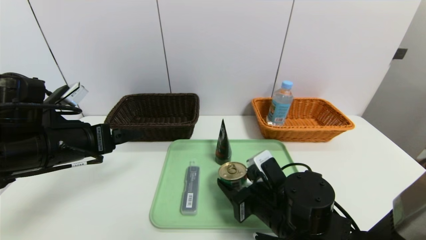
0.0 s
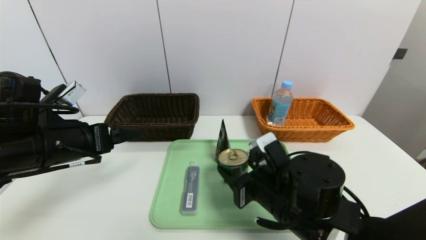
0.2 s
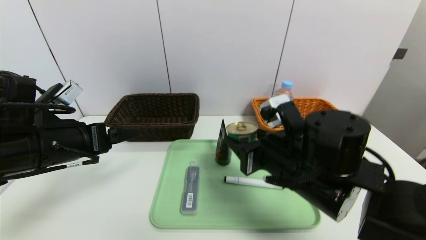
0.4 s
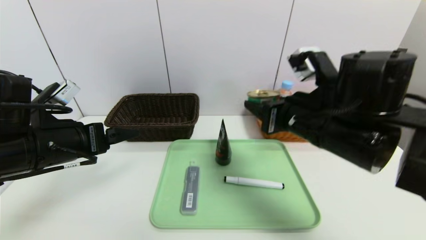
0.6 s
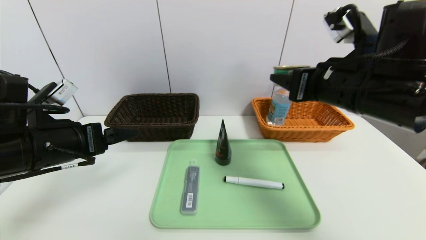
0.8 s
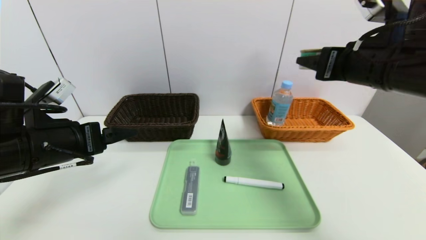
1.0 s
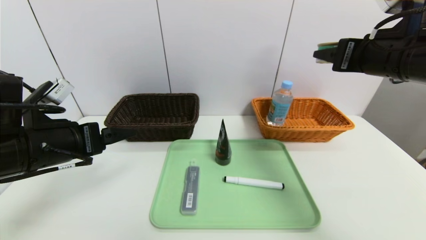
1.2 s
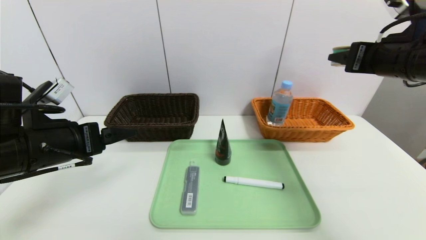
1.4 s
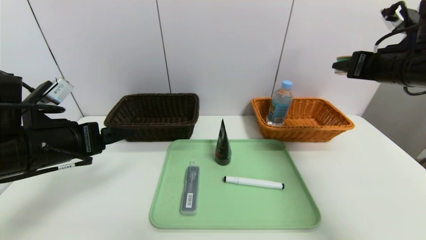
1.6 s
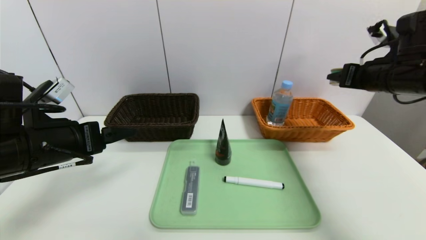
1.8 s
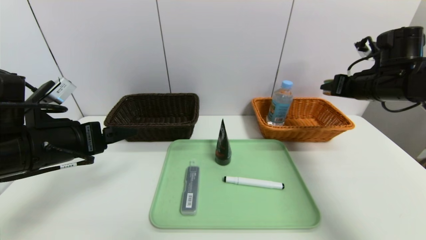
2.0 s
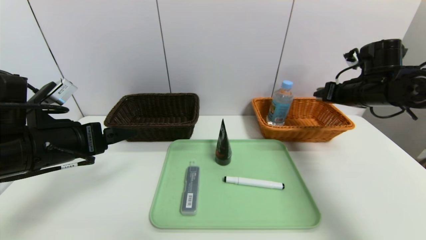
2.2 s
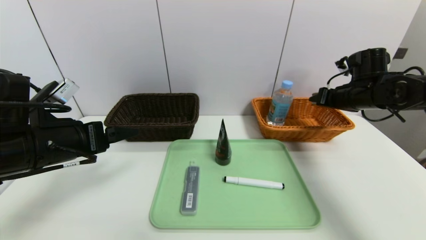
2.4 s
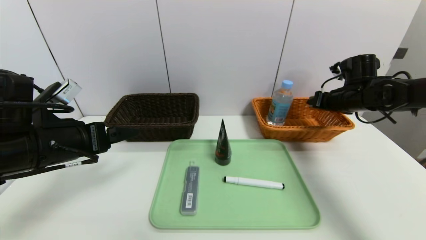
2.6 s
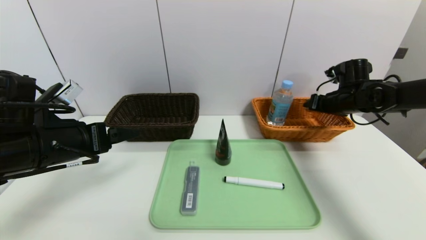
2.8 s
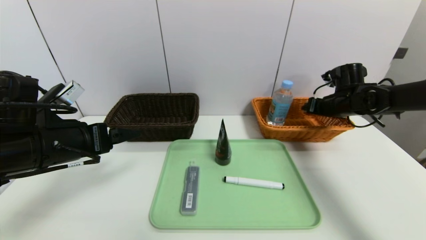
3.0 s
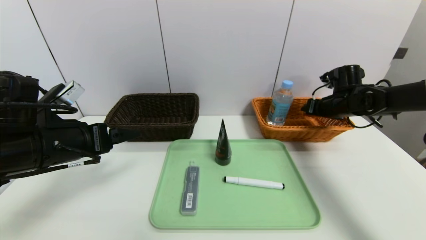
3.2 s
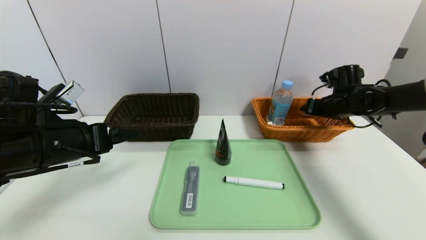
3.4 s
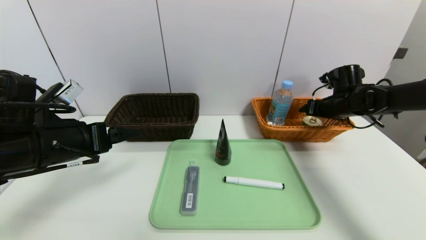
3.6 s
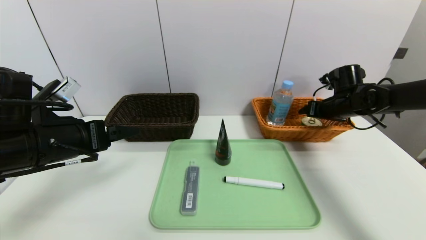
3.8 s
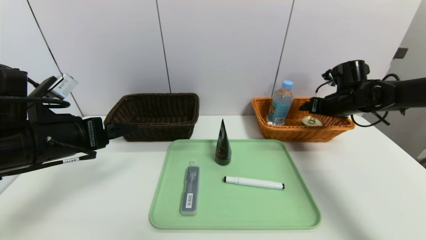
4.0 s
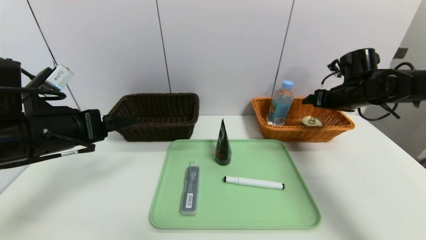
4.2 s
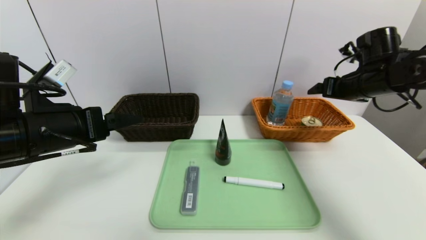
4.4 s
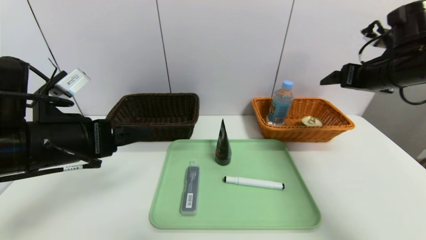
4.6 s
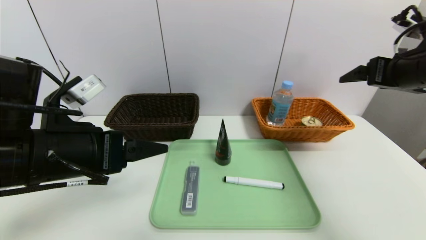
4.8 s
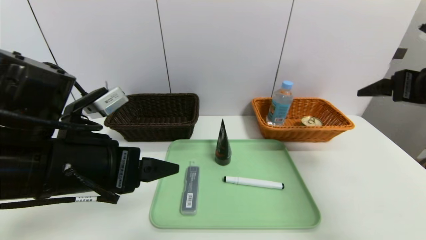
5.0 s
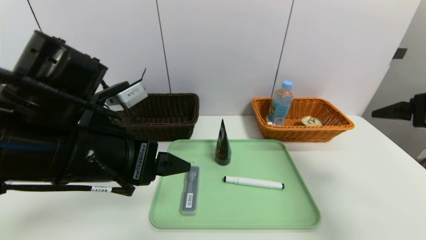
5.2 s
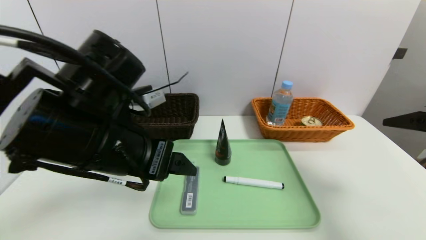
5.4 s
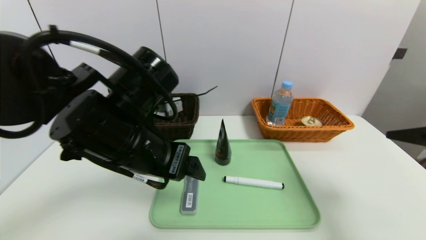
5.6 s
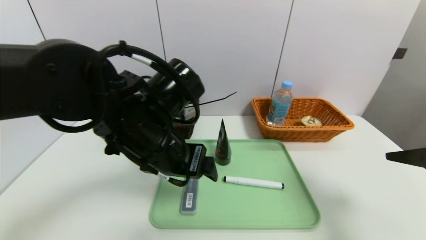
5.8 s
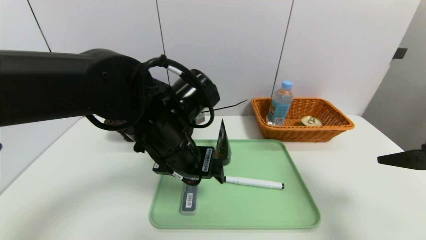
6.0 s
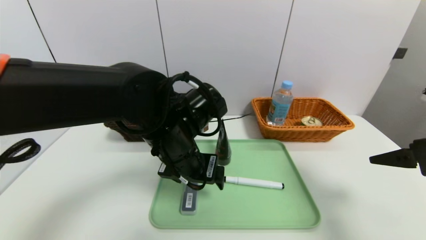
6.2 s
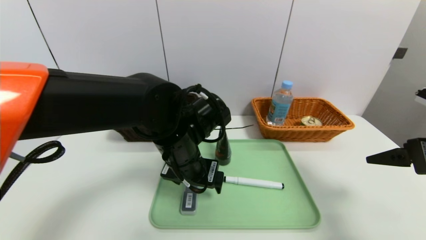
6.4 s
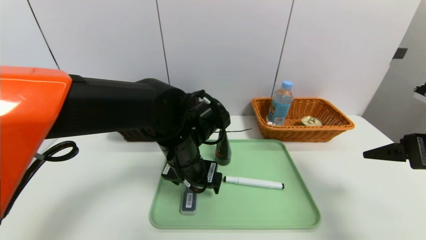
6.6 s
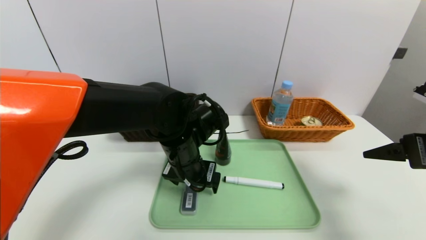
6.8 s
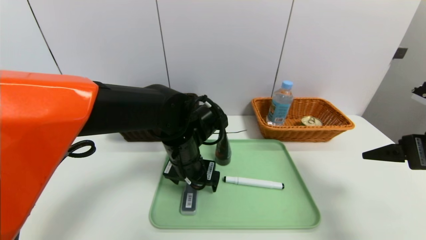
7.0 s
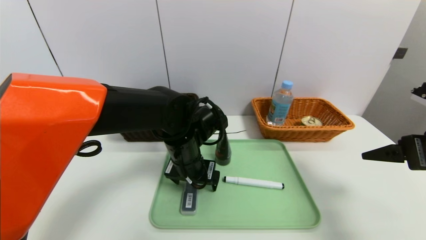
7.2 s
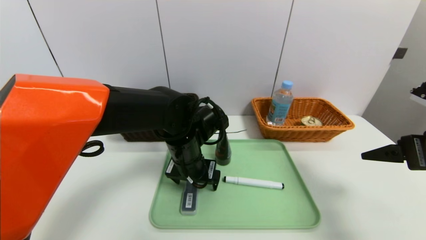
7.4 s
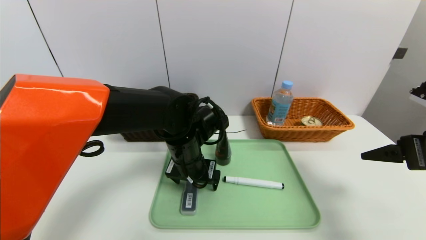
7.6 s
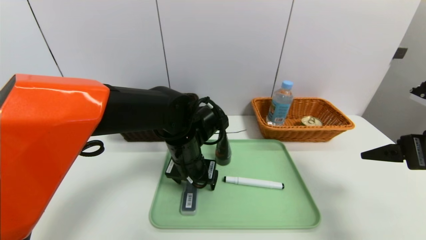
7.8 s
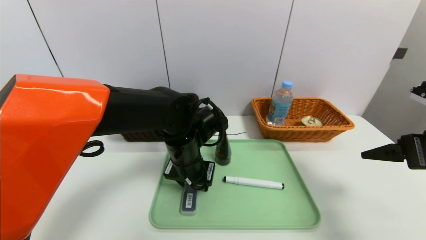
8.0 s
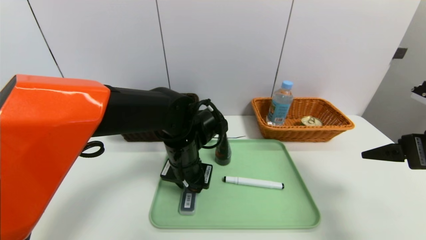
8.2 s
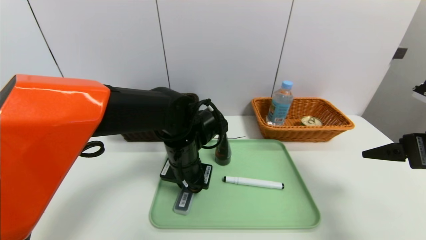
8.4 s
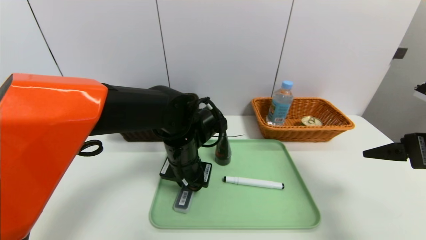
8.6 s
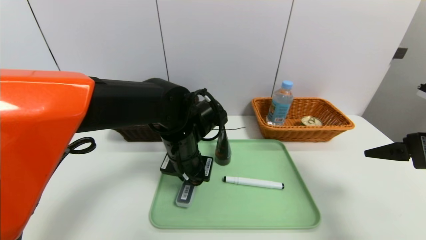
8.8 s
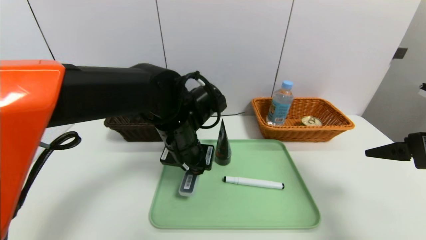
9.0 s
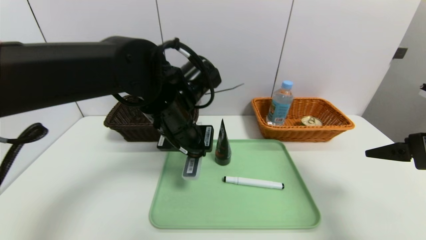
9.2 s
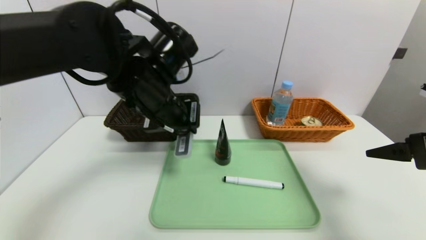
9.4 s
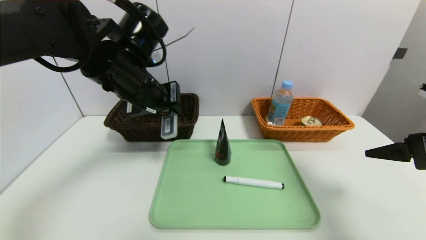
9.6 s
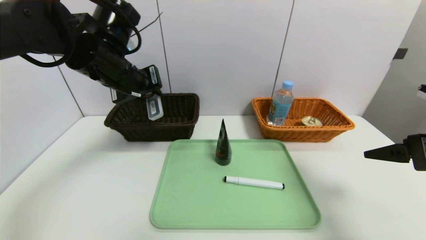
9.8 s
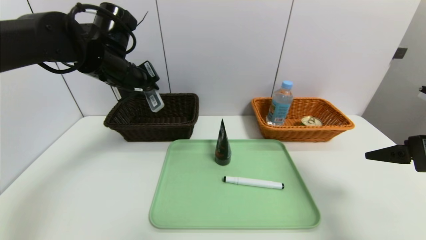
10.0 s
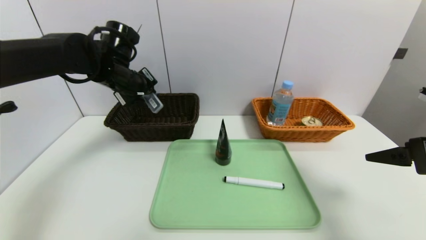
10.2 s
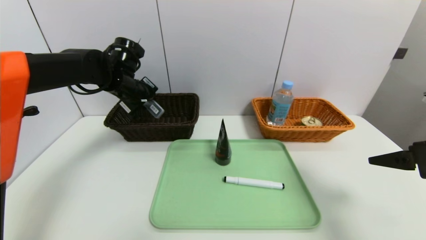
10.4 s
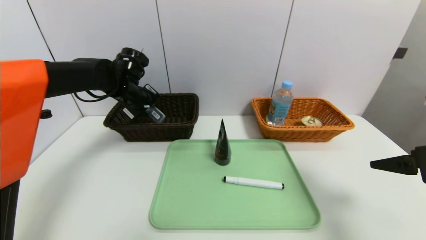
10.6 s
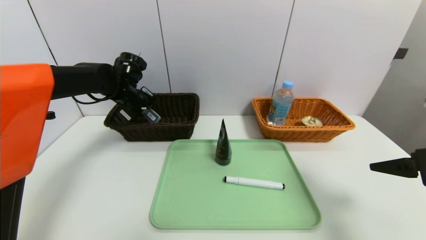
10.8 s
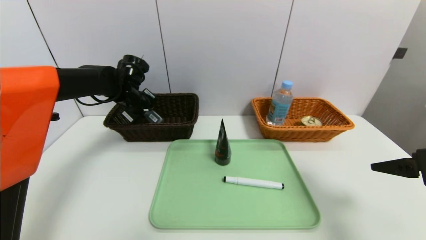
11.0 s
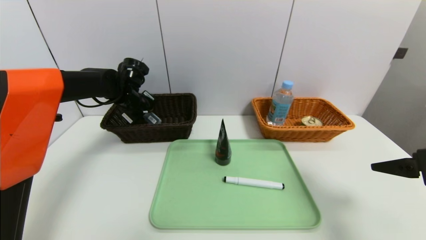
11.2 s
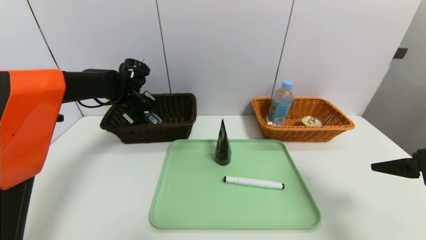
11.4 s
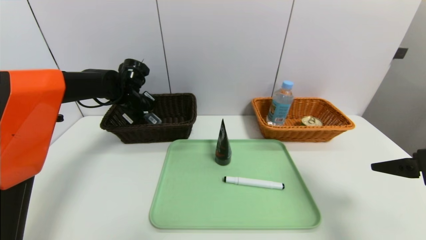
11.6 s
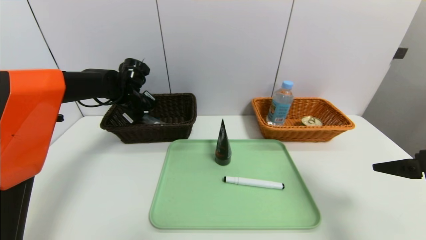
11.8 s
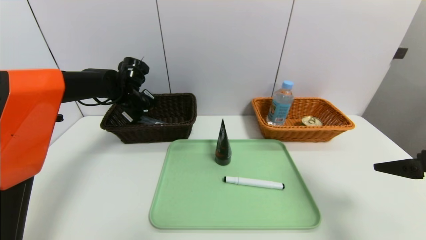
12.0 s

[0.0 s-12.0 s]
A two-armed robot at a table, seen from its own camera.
Task of the whole recording: place the food in the right basket with the right gripper, and place the non food items in the left basket with the left gripper.
Step, 0.0 to 4.0 s: Grasp the can and put it in the right basket.
0.0 to 1.6 s: The right gripper shifts roughly 30 cm upward, to the right and forward.
1.6 to 3.0 s: The right gripper goes approximately 20 cm forward and downward.
3.0 to 4.4 s: The right gripper goes about 10 cm upward and backward, and opens.
4.4 to 6.0 s: The left gripper goes about 15 cm to the right, while the right gripper travels backward by approximately 20 cm.
6.0 to 7.6 s: The left gripper heads downward and forward, covering roughly 10 cm.
7.6 to 9.0 s: The left gripper closes up.
9.0 to 10.4 s: The left gripper moves to the left and forward, some 20 cm.
10.4 to 12.0 s: The left gripper ends up approximately 5 cm from where it was, and opens up.

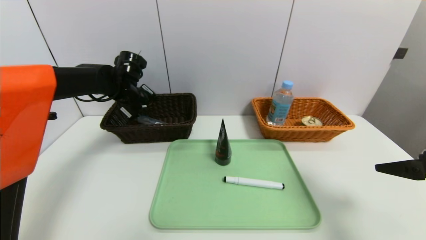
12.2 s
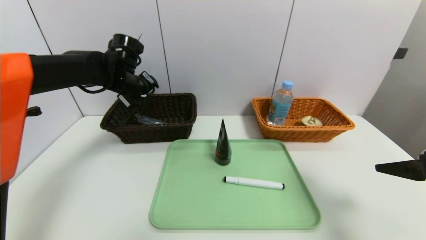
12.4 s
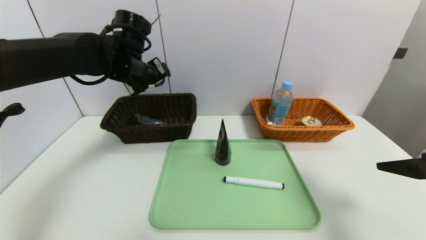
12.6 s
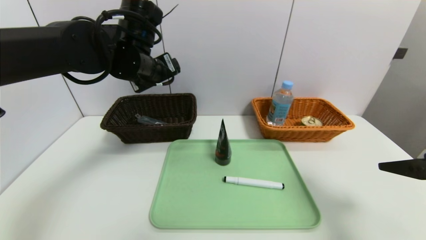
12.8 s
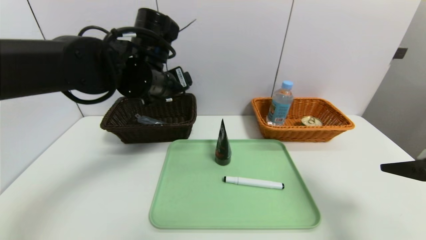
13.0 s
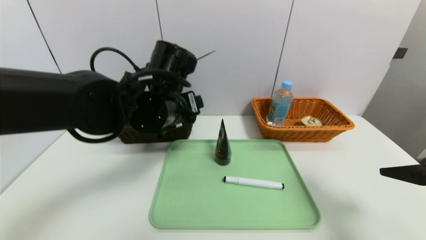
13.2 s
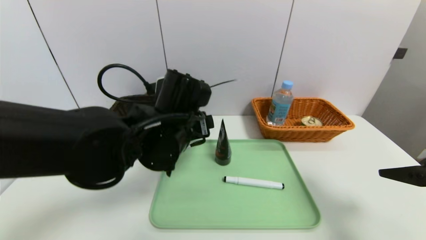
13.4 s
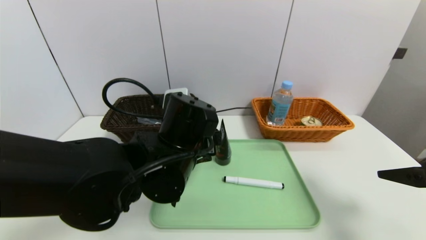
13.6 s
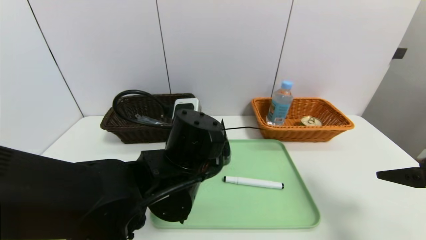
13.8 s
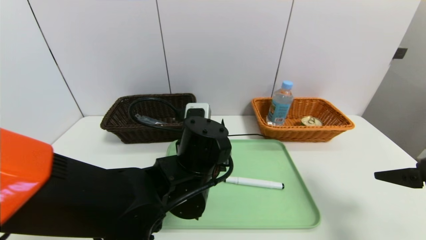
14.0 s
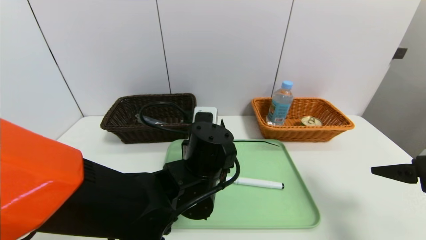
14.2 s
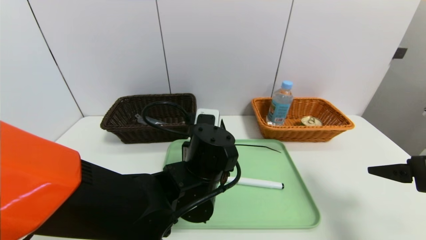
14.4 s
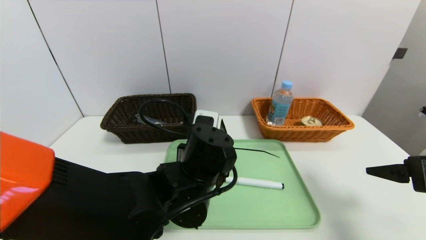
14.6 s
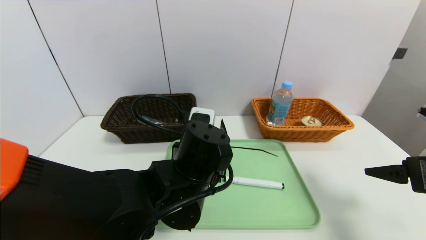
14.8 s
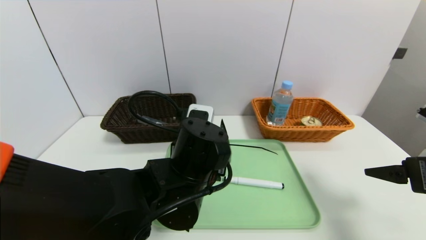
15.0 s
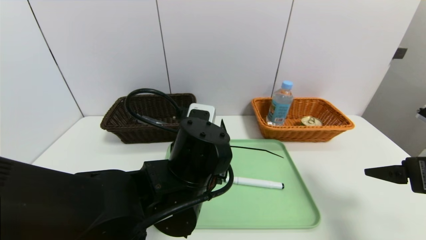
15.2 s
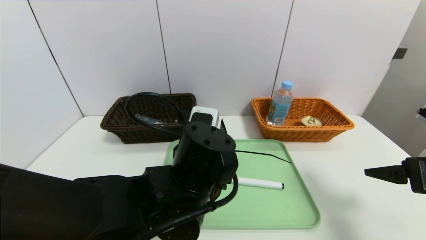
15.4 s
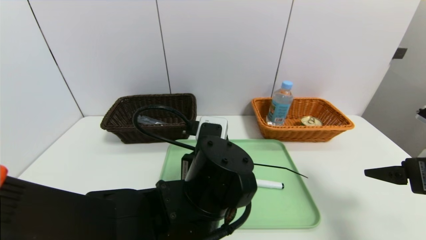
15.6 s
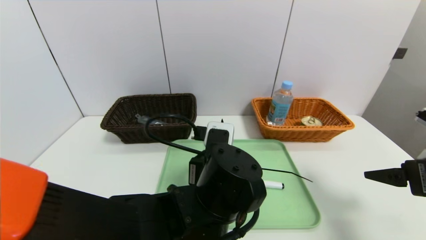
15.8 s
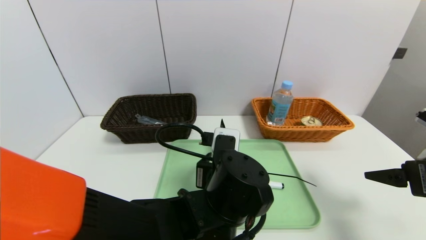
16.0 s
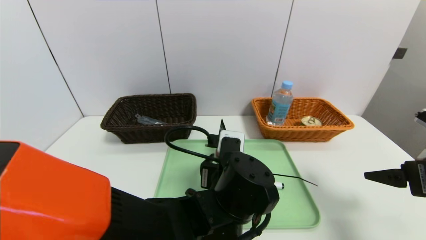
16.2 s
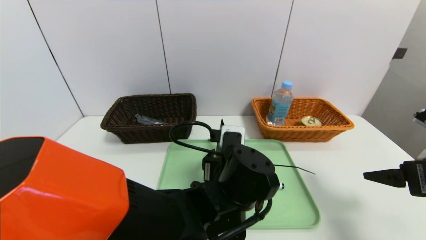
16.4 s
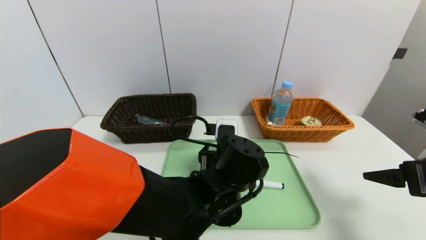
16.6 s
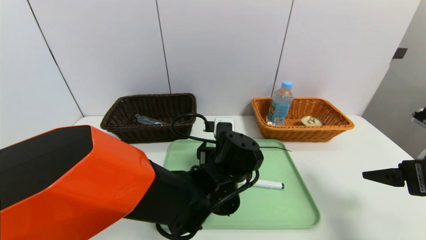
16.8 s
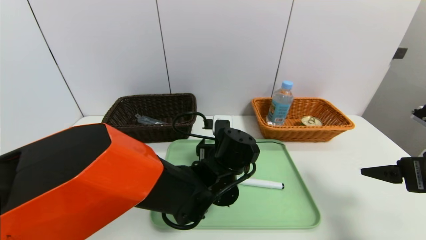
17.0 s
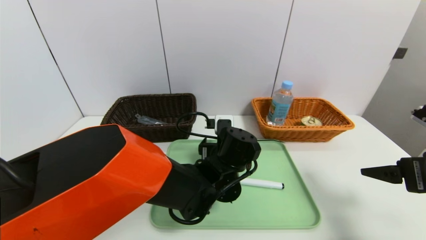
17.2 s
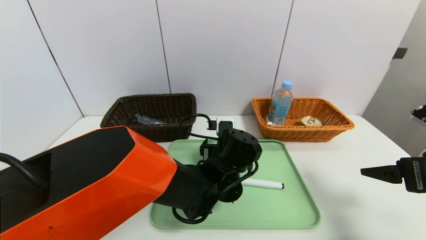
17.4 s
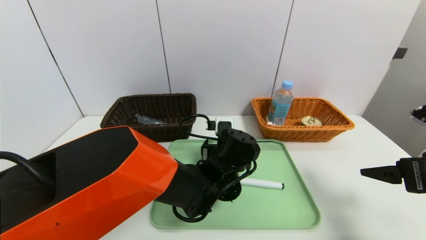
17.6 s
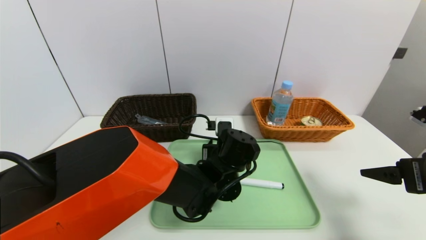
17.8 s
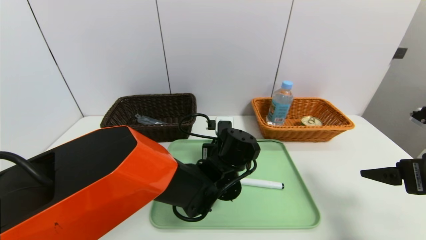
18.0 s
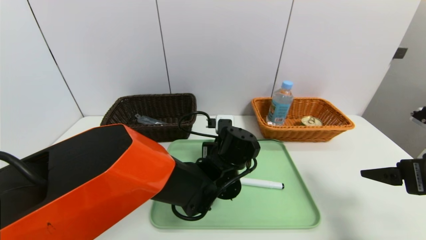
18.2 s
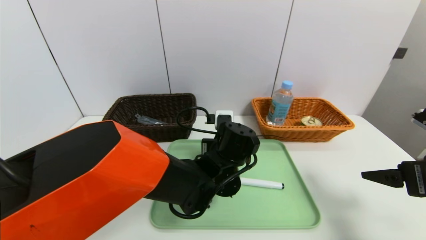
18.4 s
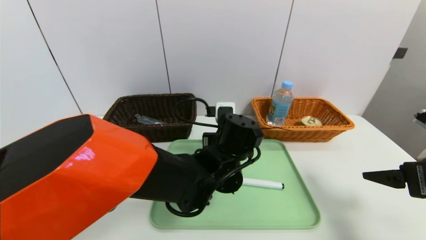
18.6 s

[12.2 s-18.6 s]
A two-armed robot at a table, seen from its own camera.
Task of the whole recording: place the food in the right basket with the right gripper, and place the non food items in the left basket with the left gripper.
12.2 to 13.8 s: The left gripper shifts approximately 30 cm backward and to the right.
13.8 to 15.4 s: The left gripper closes, then opens again.
15.4 to 17.0 s: The left gripper is displaced forward, downward and to the right by some 10 cm.
17.0 to 18.6 s: The left gripper closes.
